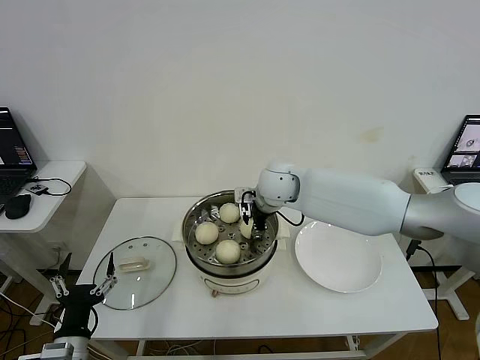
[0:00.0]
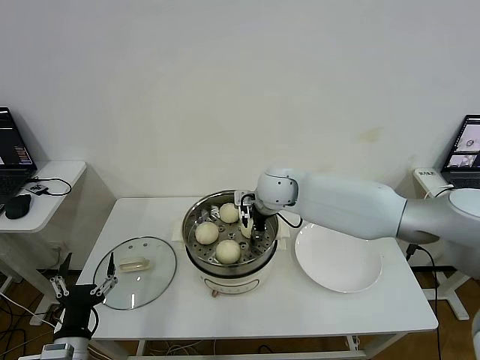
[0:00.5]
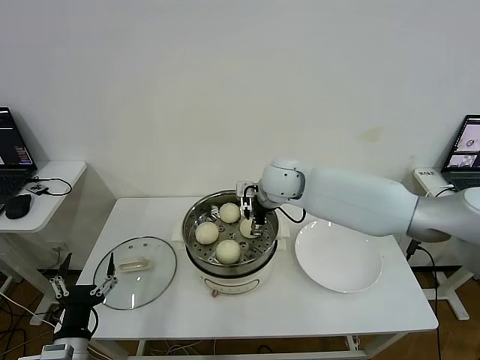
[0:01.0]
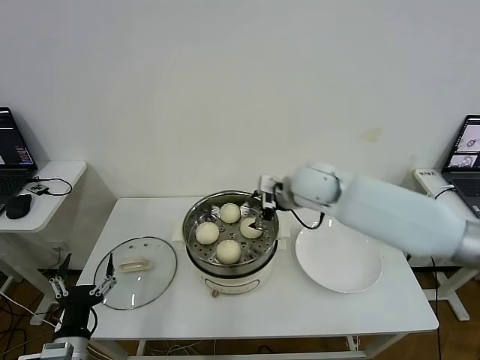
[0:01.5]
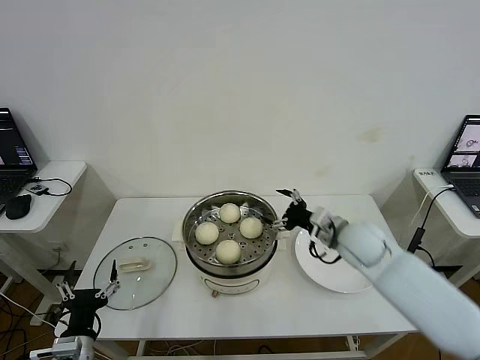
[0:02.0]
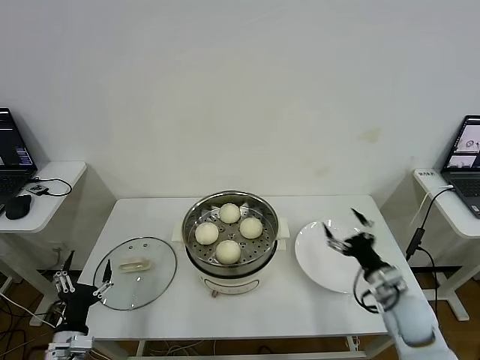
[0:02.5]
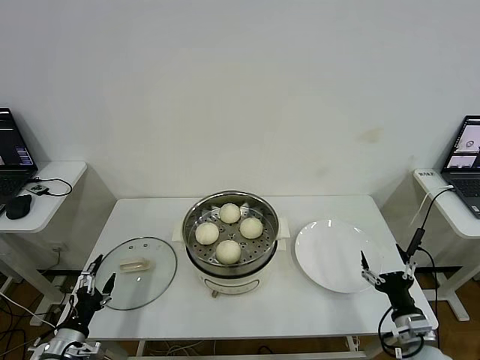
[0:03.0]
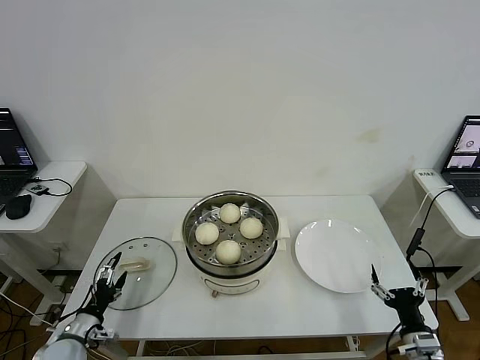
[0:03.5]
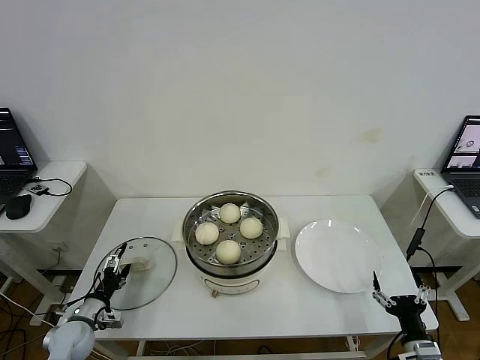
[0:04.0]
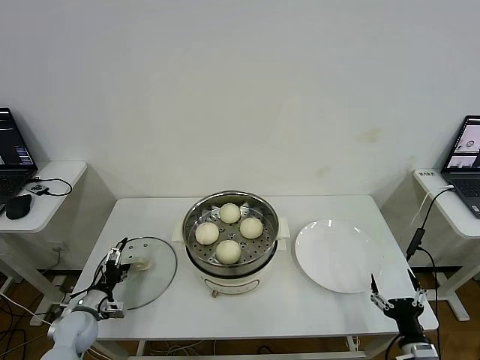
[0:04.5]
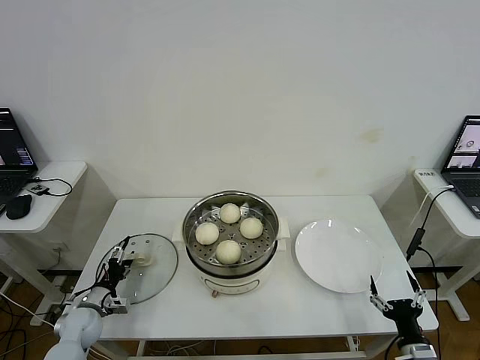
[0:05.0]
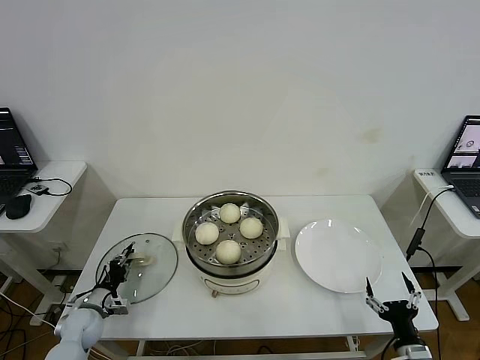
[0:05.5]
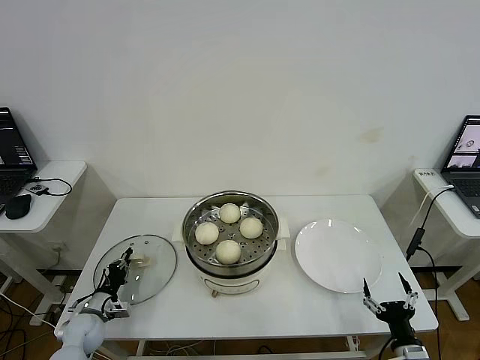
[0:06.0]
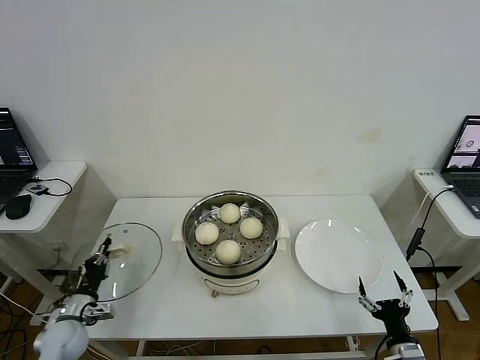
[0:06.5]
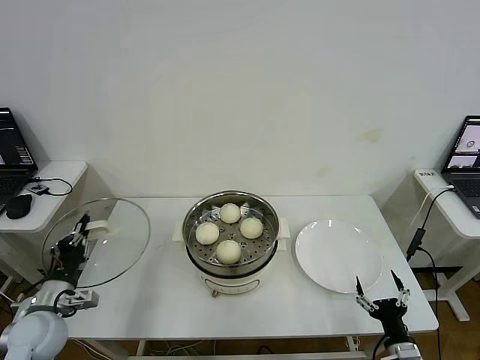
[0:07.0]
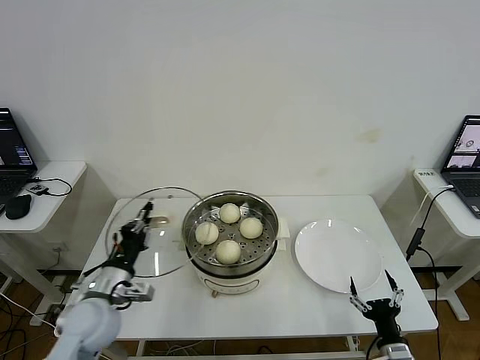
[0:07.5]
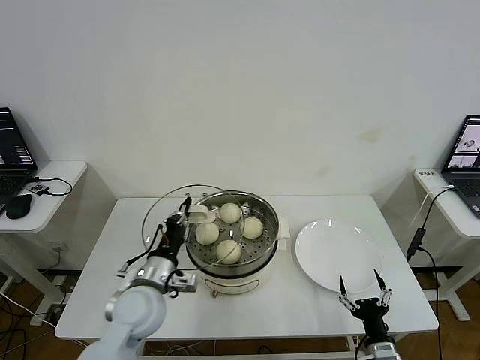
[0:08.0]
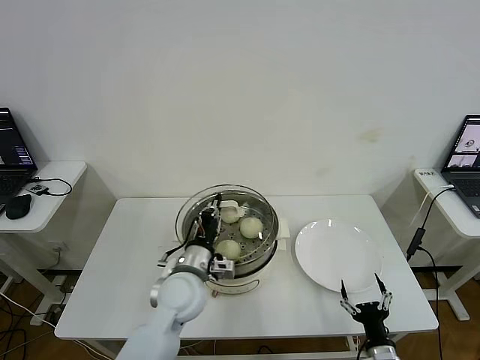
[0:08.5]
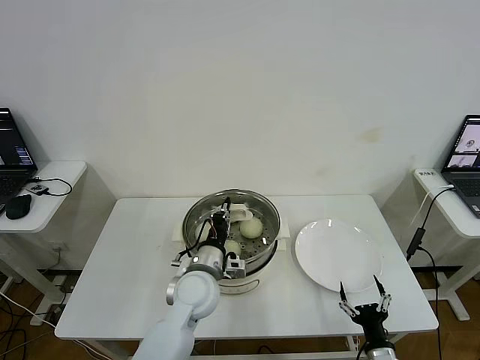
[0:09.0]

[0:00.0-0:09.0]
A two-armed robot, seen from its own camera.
Step, 0:01.5 to 0:05.5: Grasp the pot lid with left gripper.
0:00.0 to 0:02.0: The right gripper travels to the right, backward and downward by about 20 cm, and opens its fingers.
0:02.0 to 0:04.5: The right gripper is displaced backward, downward and to the right by roughly 35 cm. The left gripper moves forward, downward and to the left, about 20 cm.
0:04.5 to 0:07.0: The left gripper travels upward by about 15 cm, and closes up.
0:07.0 to 0:09.0: The left gripper moves to the right, approximately 30 cm.

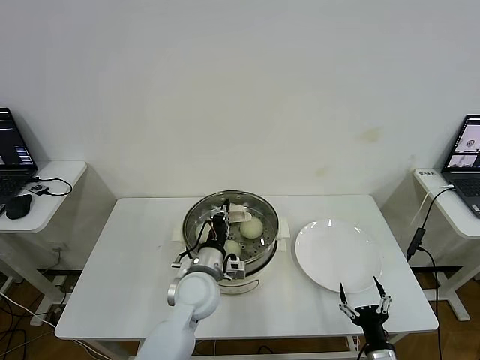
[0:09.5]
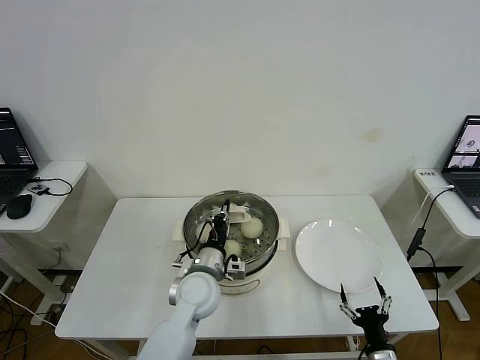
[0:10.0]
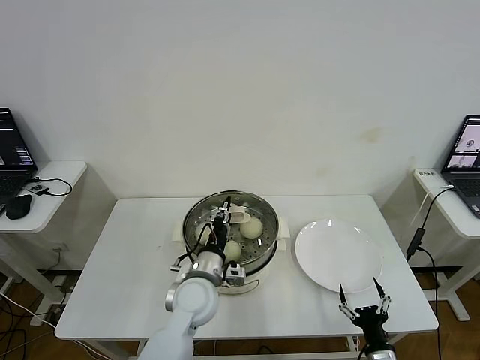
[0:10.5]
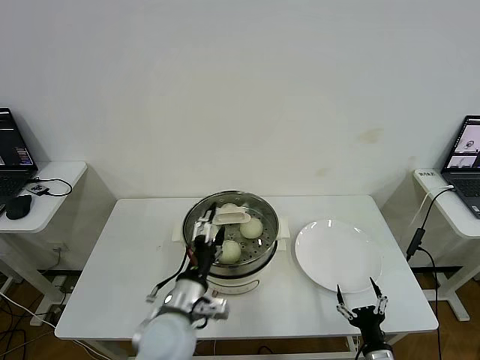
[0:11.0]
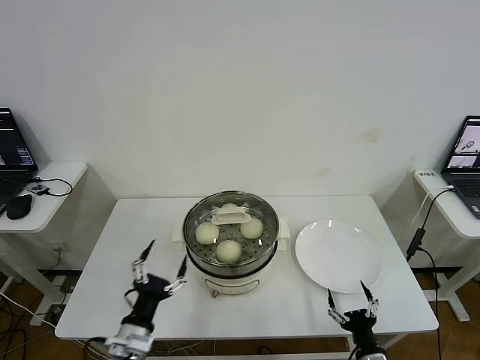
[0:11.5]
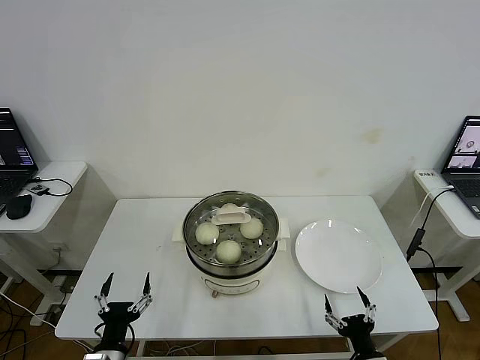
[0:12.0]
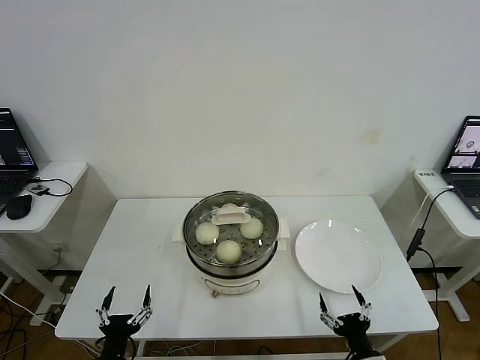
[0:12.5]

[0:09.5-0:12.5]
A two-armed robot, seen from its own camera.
0:09.5 to 0:11.0: The left gripper travels backward by some 10 cm, and opens up.
0:11.0 to 0:12.5: The left gripper travels to the left, backward and downward by about 25 cm. The right gripper shifts by approximately 5 cm.

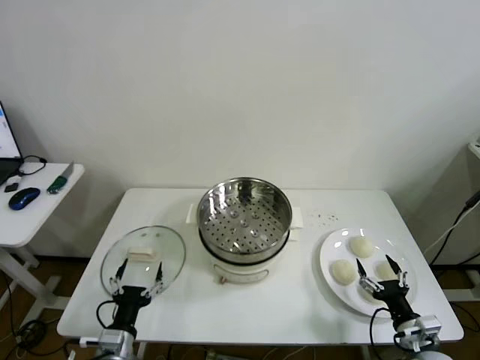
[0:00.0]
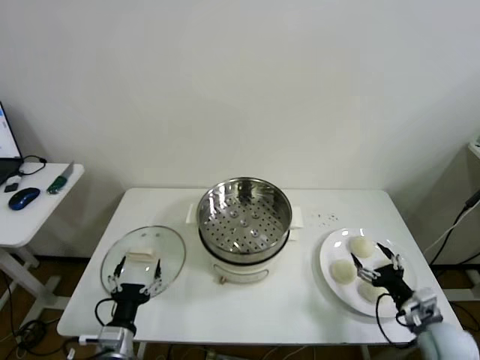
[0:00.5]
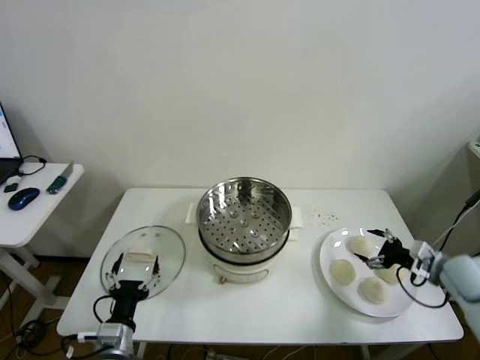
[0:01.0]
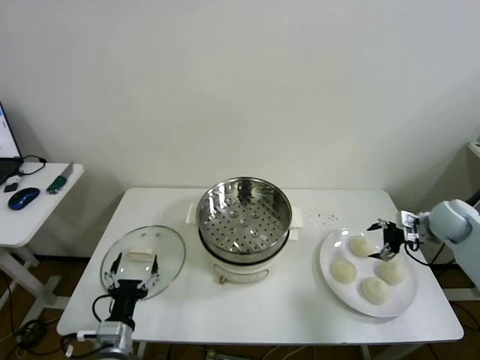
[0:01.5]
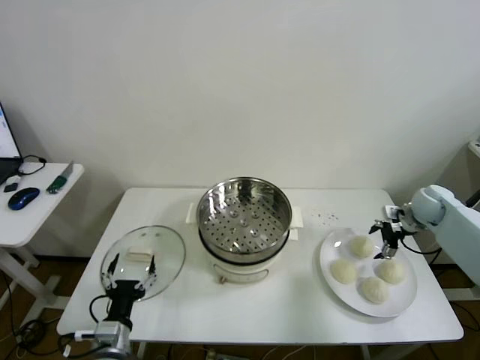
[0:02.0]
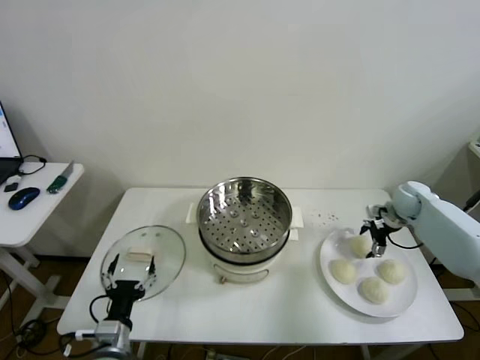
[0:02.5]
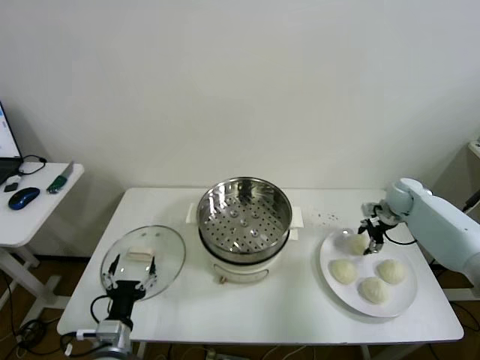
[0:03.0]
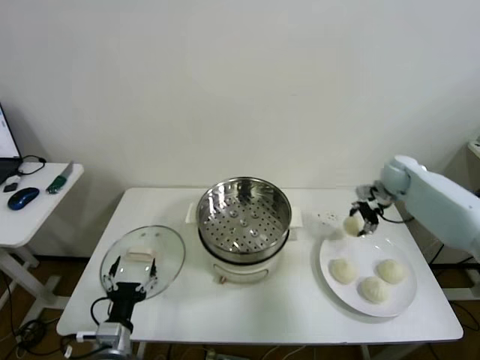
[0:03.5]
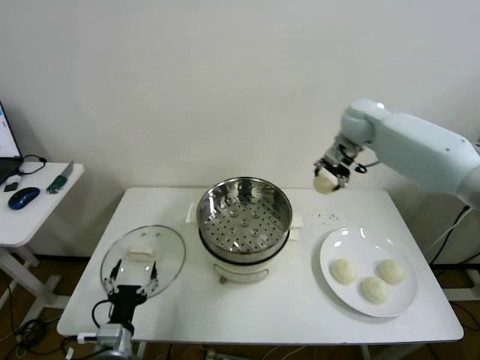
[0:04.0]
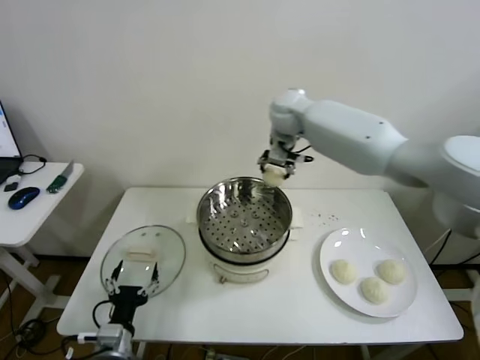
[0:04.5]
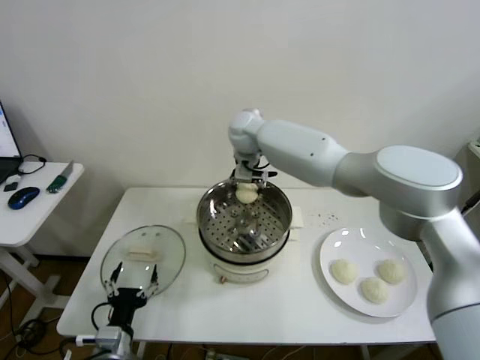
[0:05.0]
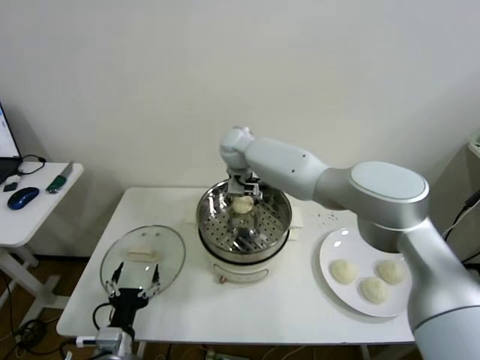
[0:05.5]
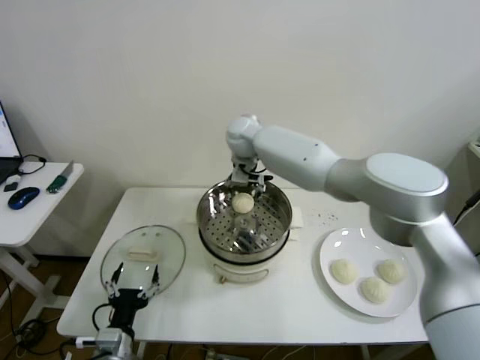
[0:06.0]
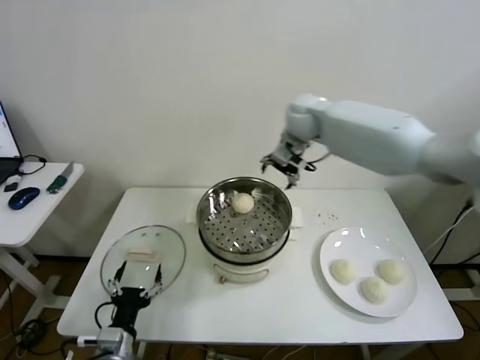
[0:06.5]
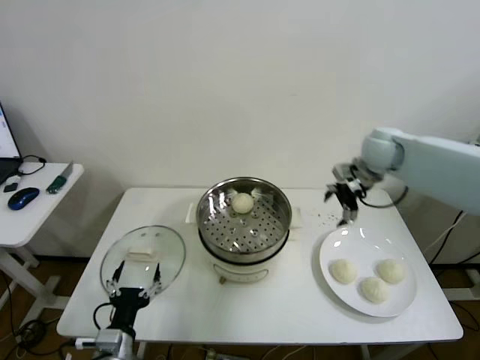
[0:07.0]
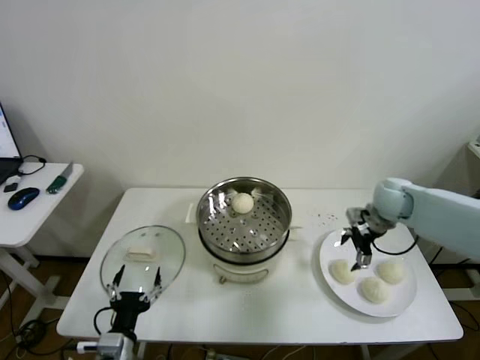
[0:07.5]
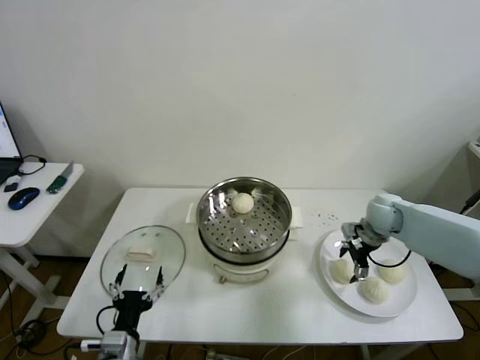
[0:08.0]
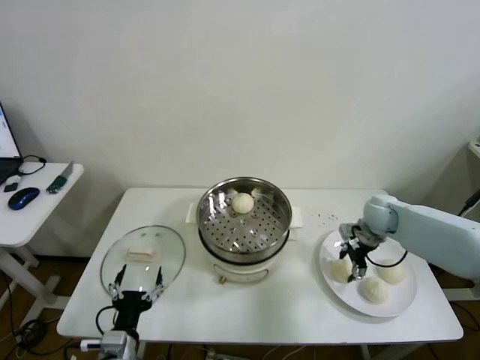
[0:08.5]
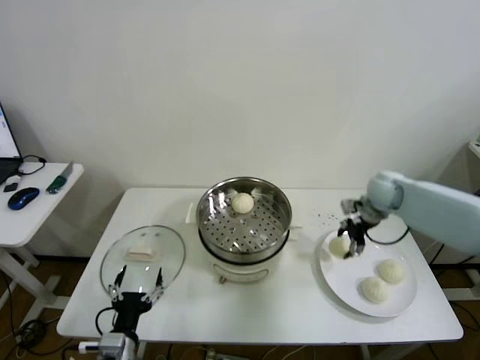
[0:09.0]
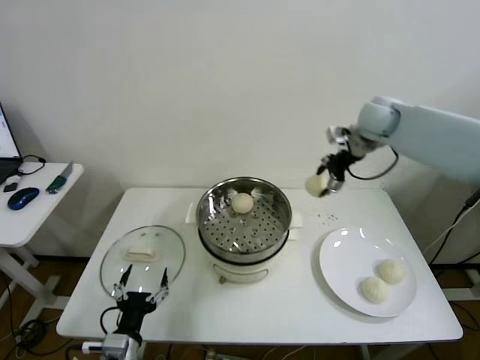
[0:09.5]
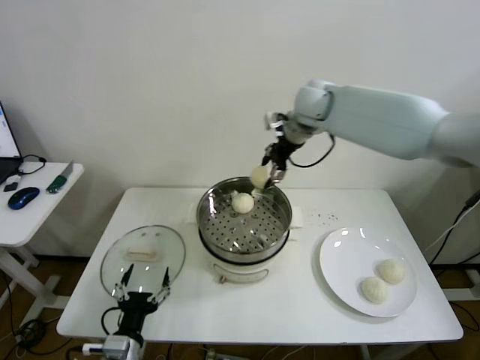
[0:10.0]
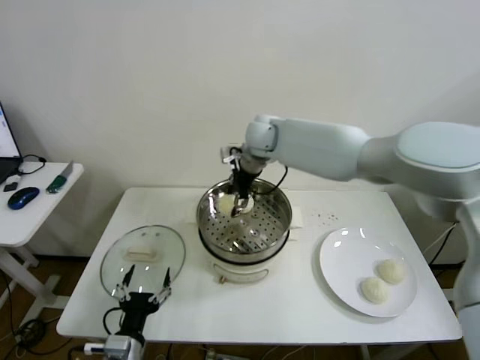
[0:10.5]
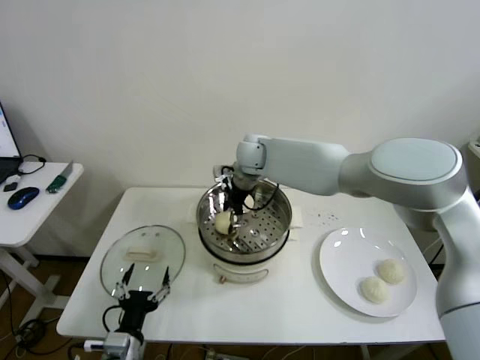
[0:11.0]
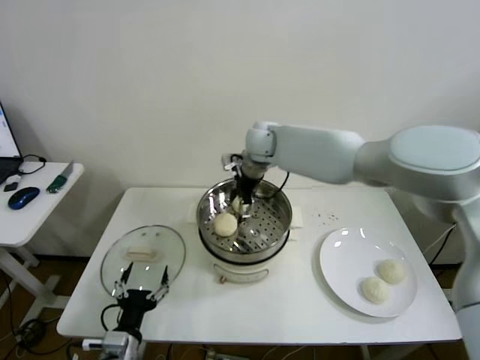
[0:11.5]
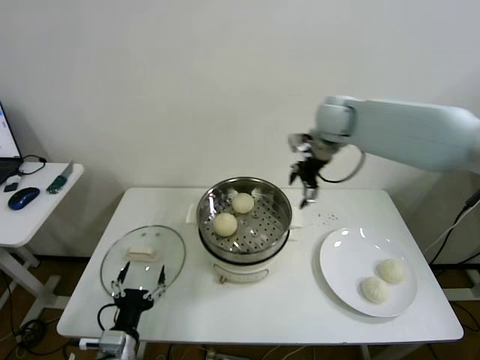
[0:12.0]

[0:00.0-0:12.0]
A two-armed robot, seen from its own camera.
Step, 0:00.0 to 0:02.5: Grasp the baozi in the plate with right gripper.
Step, 0:03.0 to 0:05.5: Place the baozi on the steamer with right gripper.
Step, 0:06.0 to 0:08.0: Grasp the baozi in the plate with right gripper.
Step, 0:09.0 to 0:11.0: Place the baozi on the steamer with right gripper.
0:02.0 to 0:04.0: The right gripper travels to the left, upward and forward by about 35 cm, and closes.
0:04.0 to 0:06.0: The right gripper goes some 20 cm to the left, and opens up.
0:06.0 to 0:08.0: The right gripper heads to the right and downward, covering some 40 cm.
0:08.0 to 0:10.0: The right gripper moves upward, to the left and forward, roughly 35 cm, and closes its fingers.
0:10.0 to 0:12.0: The right gripper goes some 10 cm to the right, and opens its fingers.

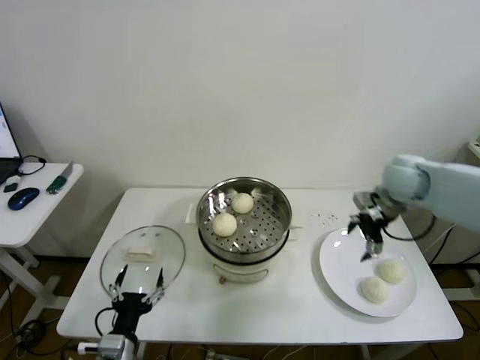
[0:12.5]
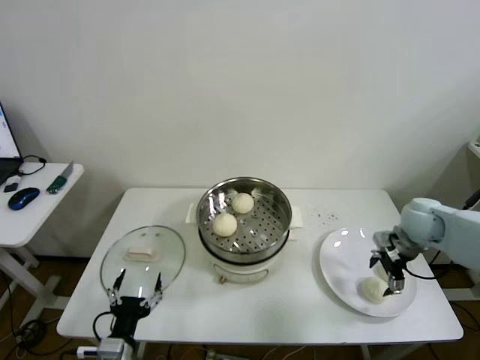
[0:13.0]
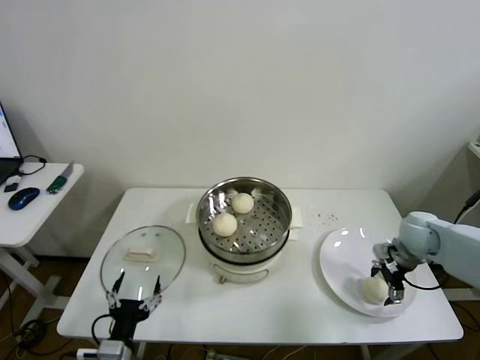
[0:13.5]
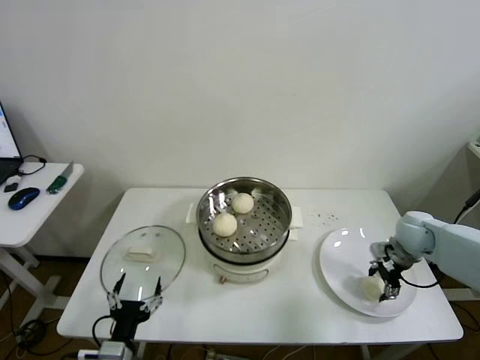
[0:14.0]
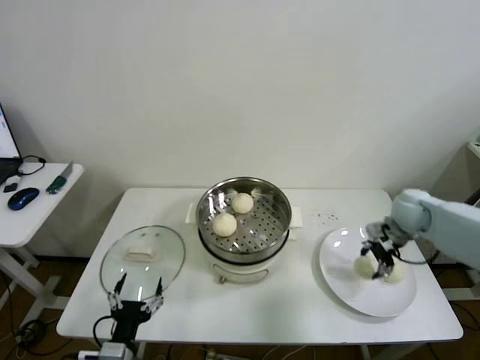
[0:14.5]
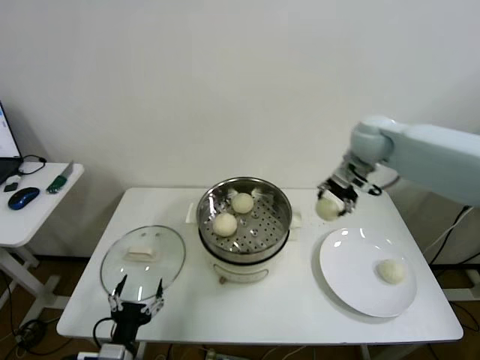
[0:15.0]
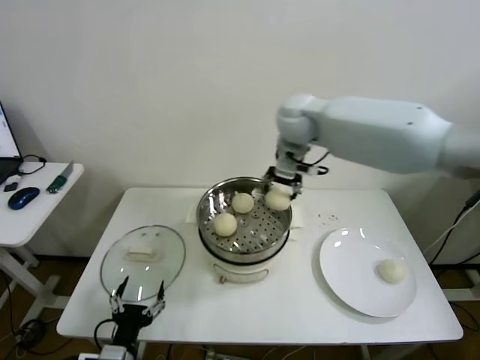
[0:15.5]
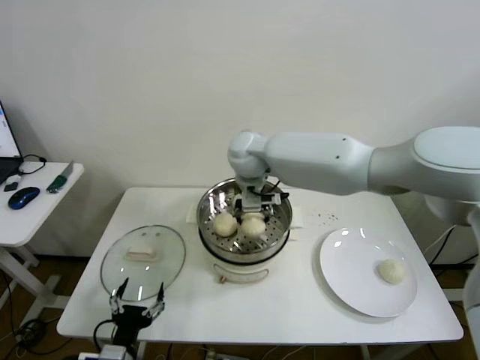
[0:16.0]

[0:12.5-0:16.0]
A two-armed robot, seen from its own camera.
0:12.5 to 0:14.5: The right gripper heads downward, covering some 5 cm, and closes.
0:14.5 to 0:16.0: The right gripper shifts approximately 40 cm to the left.
